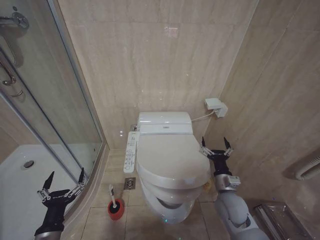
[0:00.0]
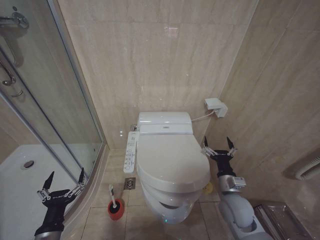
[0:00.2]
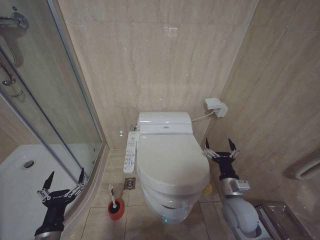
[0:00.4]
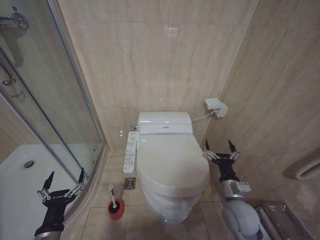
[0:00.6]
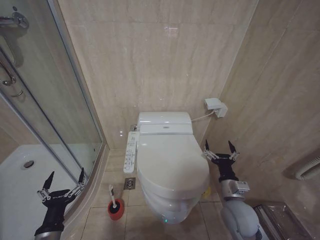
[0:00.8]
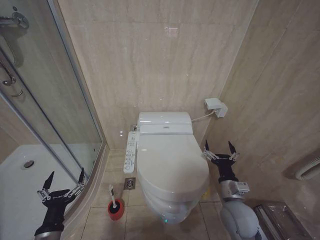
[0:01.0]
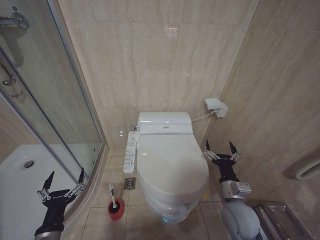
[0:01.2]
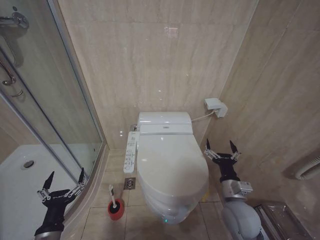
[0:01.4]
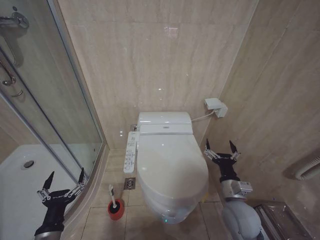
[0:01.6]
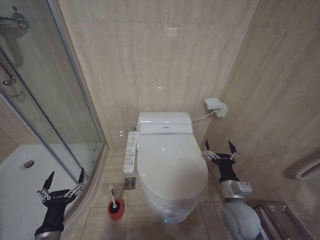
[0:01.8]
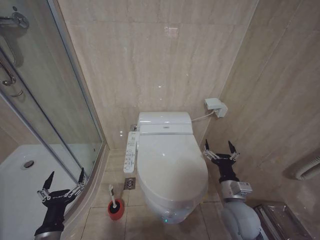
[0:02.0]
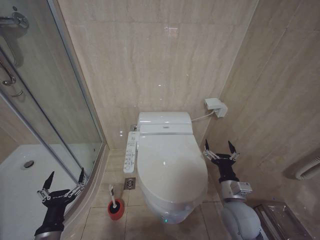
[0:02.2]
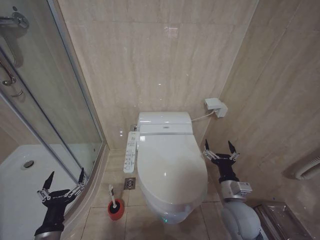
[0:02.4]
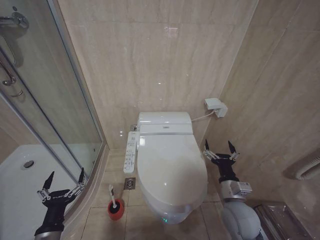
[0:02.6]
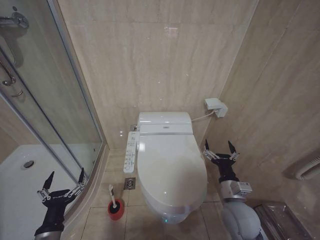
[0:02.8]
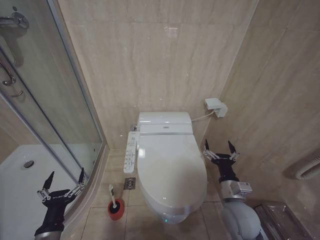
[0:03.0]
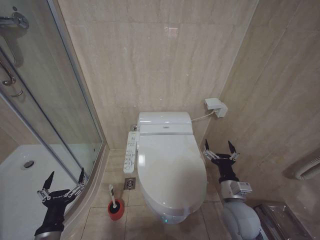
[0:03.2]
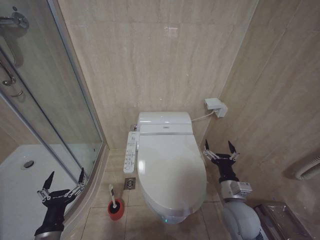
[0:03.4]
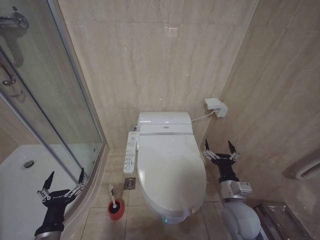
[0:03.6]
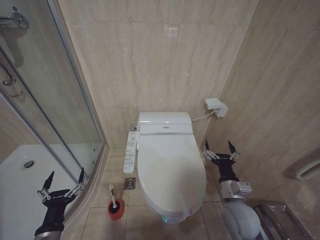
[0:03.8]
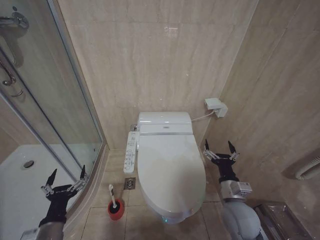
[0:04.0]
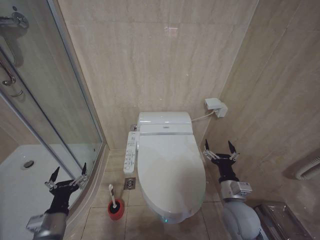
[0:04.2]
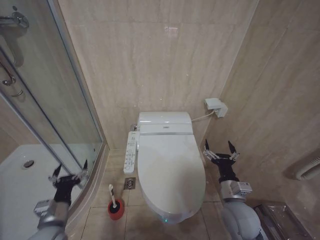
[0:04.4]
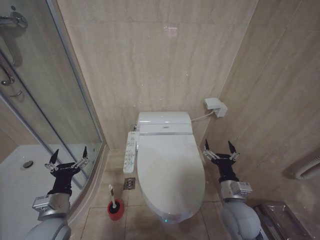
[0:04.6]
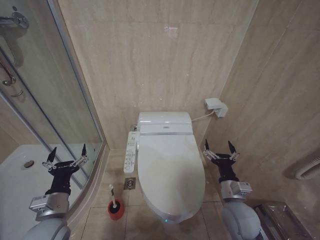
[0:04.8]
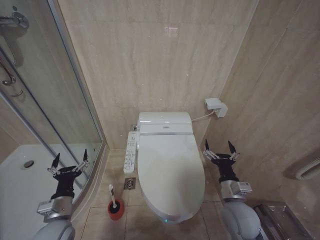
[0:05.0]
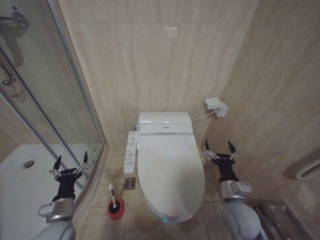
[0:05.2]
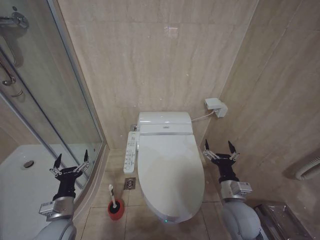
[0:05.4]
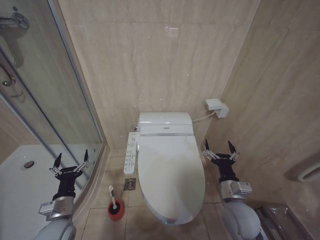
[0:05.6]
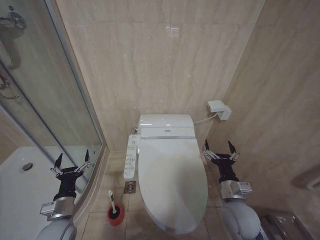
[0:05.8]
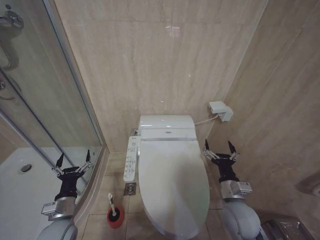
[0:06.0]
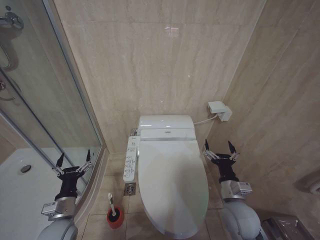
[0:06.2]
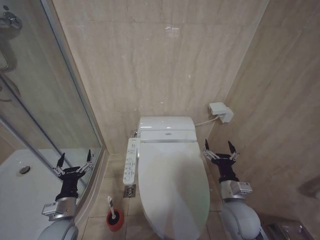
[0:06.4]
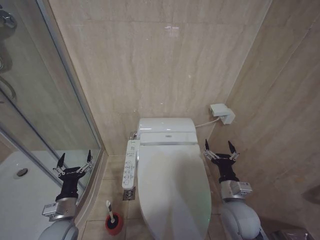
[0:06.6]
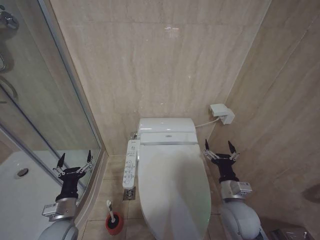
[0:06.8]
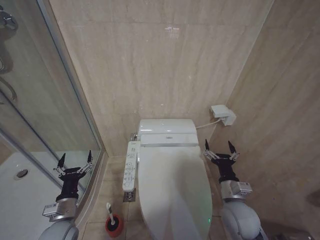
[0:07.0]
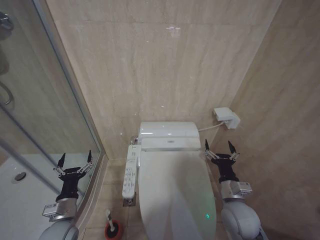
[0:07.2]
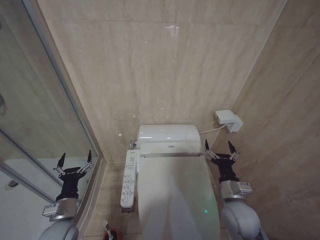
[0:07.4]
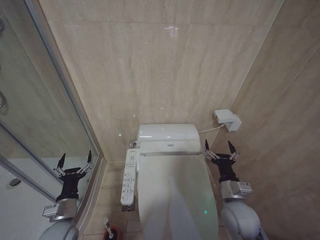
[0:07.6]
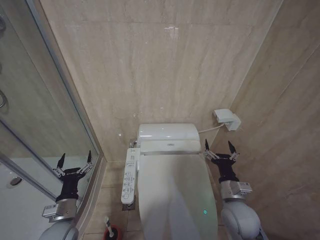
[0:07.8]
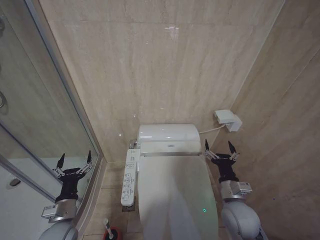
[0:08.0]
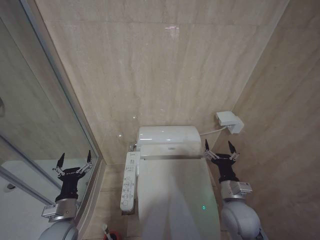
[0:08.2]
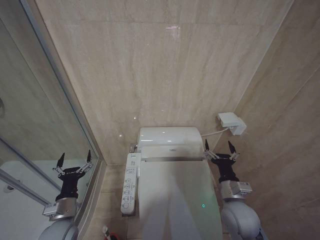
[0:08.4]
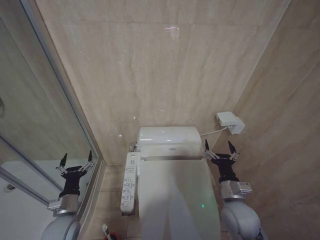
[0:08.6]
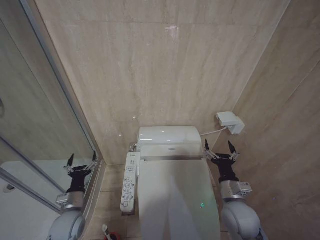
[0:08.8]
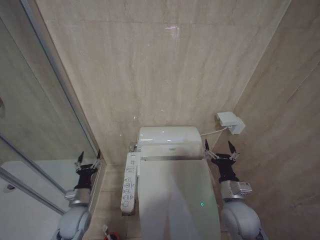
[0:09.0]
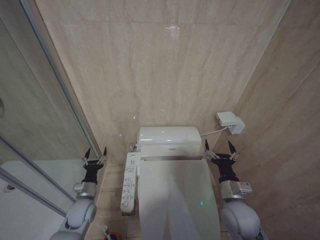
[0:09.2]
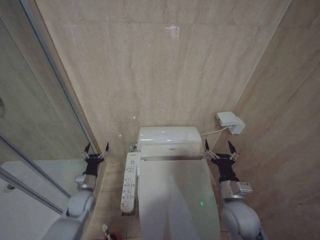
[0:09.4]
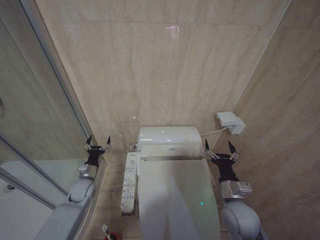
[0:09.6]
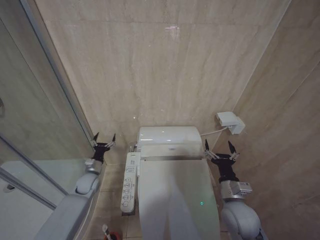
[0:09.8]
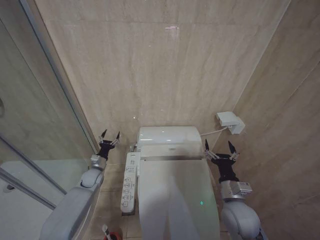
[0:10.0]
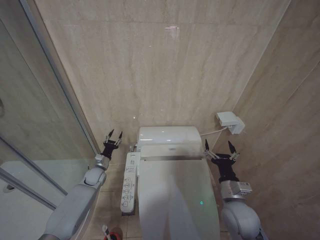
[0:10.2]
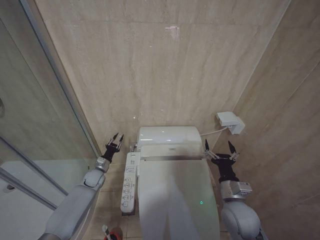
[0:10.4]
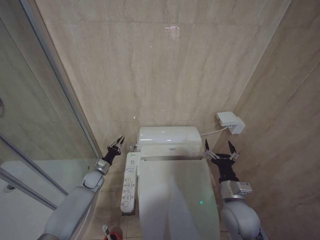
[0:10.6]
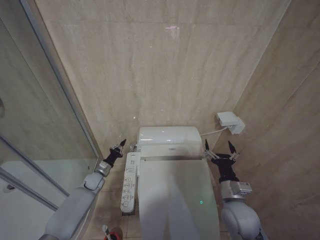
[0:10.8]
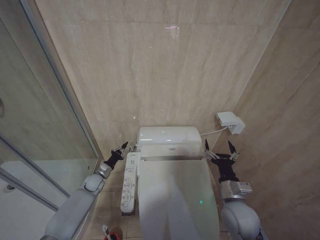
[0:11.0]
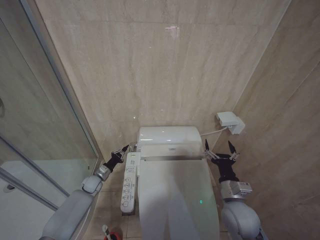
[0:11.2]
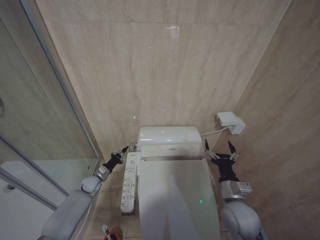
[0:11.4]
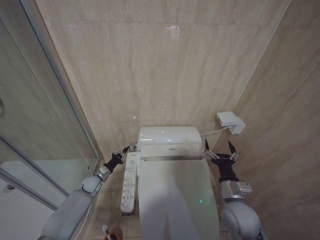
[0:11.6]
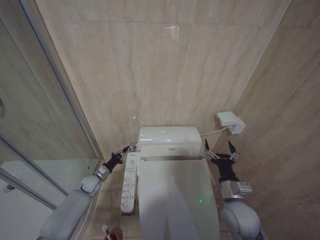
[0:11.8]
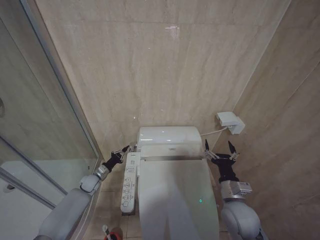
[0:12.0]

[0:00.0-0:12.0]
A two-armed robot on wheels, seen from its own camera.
Task of the whole recording: Open the toilet lid, clean the toilet bowl with a toilet brush, close the toilet lid, and flush.
0:00.0 to 0:01.6: The right gripper changes place by approximately 5 cm.
0:01.6 to 0:03.0: Both grippers stay put.
0:03.0 to 0:04.4: The left gripper shifts about 5 cm forward.
0:04.4 to 0:06.0: There are only small adjustments of the grippers.
0:06.0 to 0:07.6: The two grippers keep their place.
0:07.6 to 0:09.0: The left gripper moves forward, approximately 5 cm.
0:09.0 to 0:10.4: The left gripper moves forward, some 20 cm, and closes.
0:10.4 to 0:12.0: The left gripper closes.

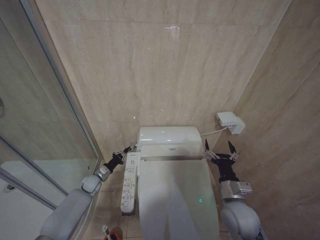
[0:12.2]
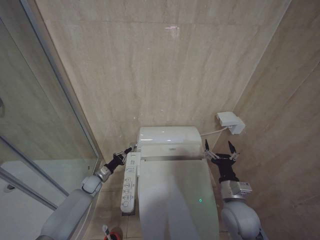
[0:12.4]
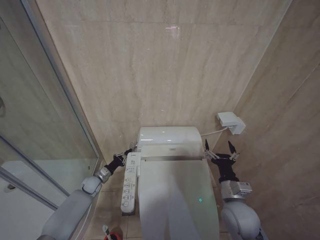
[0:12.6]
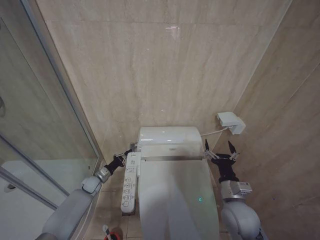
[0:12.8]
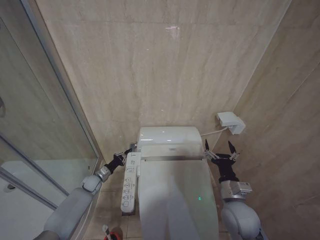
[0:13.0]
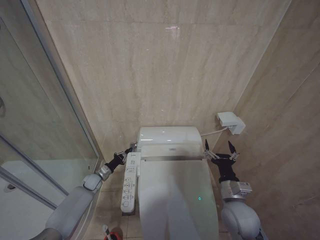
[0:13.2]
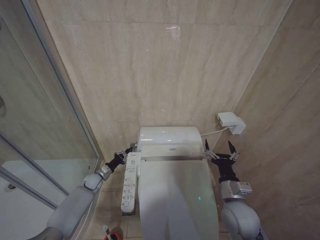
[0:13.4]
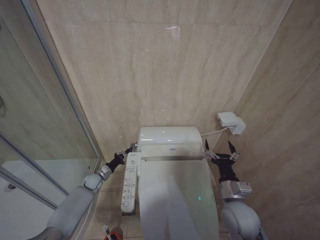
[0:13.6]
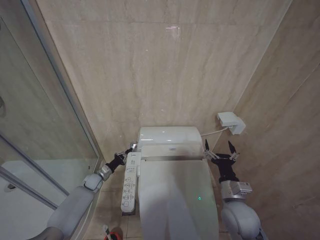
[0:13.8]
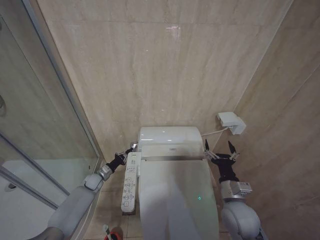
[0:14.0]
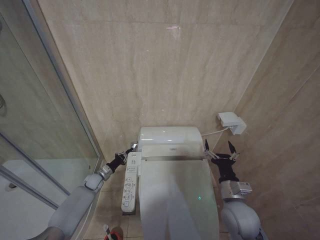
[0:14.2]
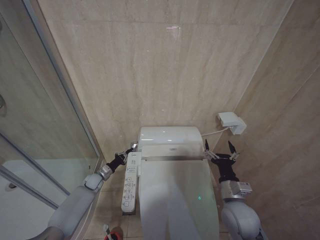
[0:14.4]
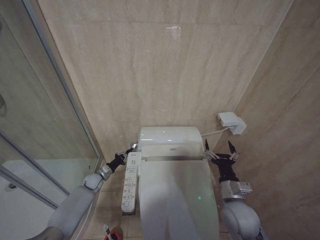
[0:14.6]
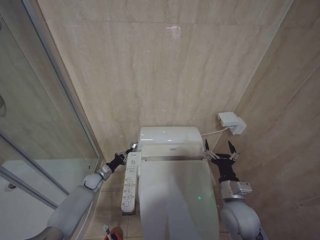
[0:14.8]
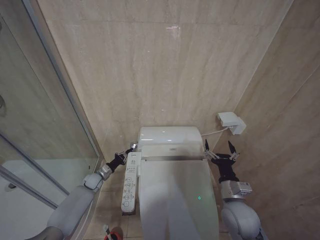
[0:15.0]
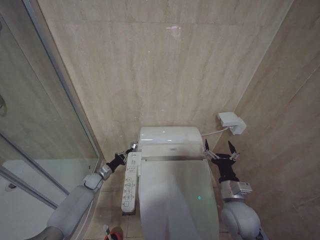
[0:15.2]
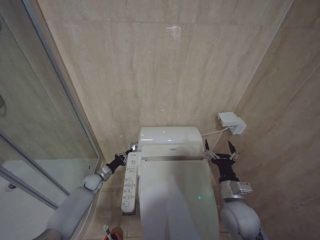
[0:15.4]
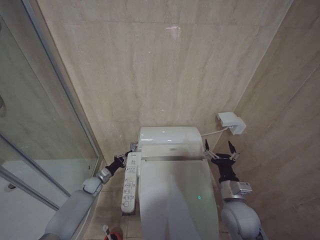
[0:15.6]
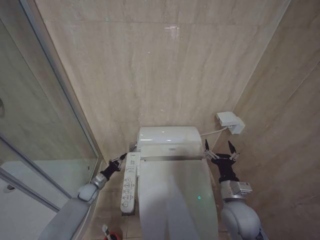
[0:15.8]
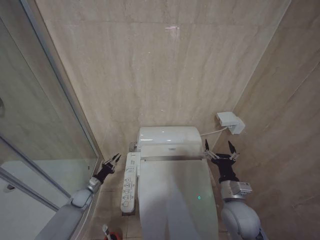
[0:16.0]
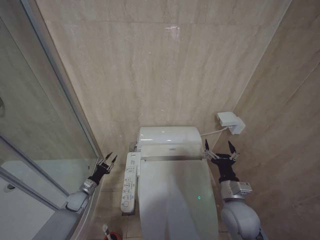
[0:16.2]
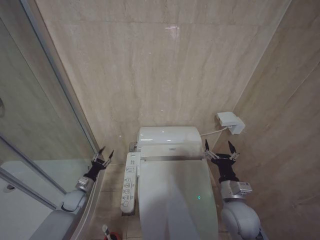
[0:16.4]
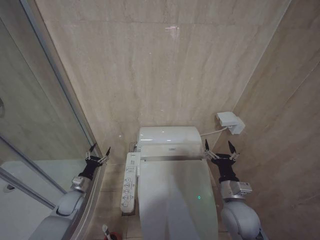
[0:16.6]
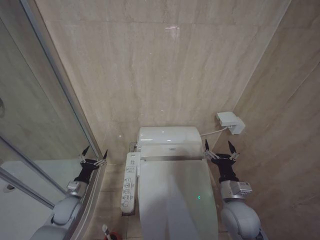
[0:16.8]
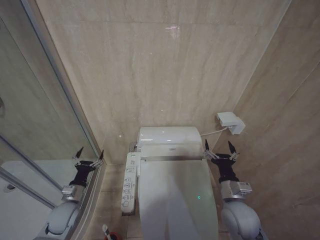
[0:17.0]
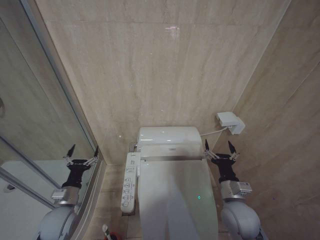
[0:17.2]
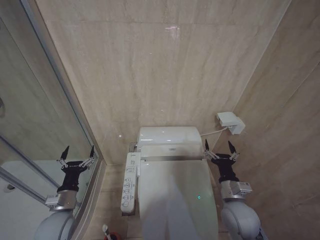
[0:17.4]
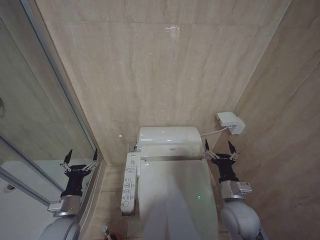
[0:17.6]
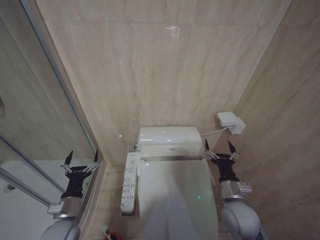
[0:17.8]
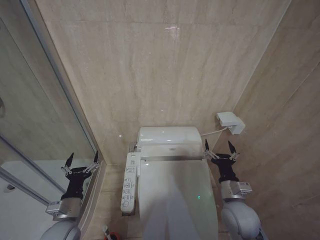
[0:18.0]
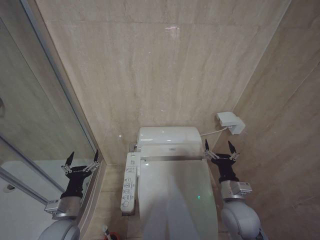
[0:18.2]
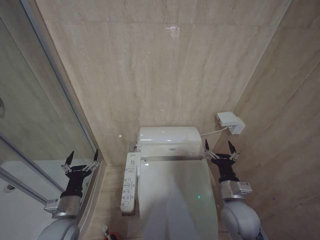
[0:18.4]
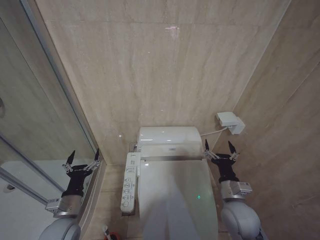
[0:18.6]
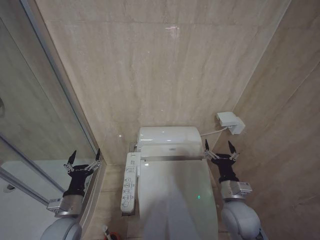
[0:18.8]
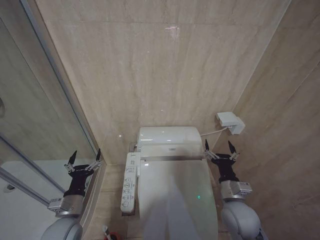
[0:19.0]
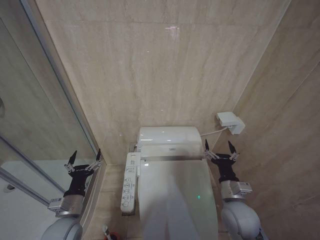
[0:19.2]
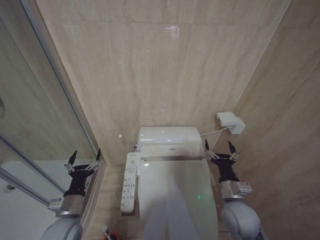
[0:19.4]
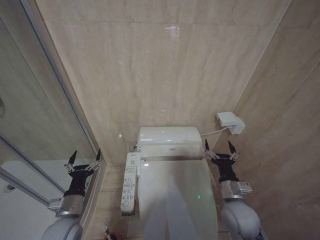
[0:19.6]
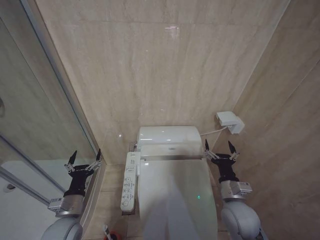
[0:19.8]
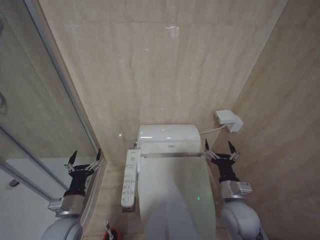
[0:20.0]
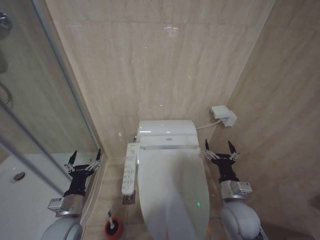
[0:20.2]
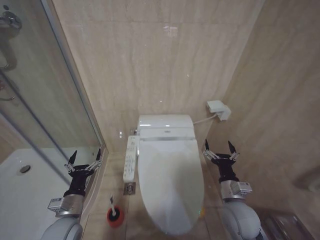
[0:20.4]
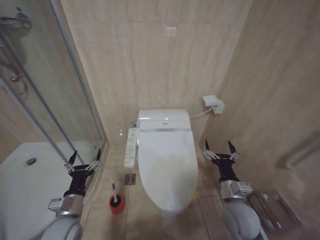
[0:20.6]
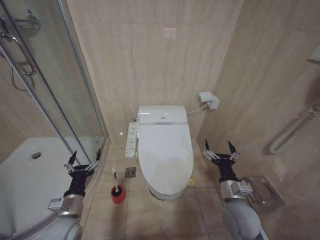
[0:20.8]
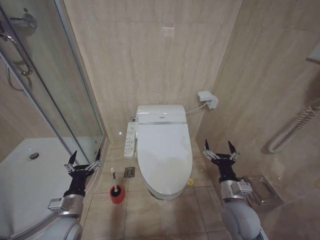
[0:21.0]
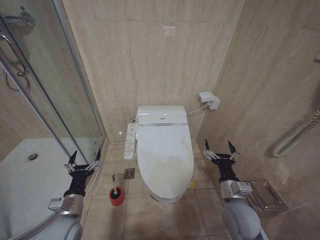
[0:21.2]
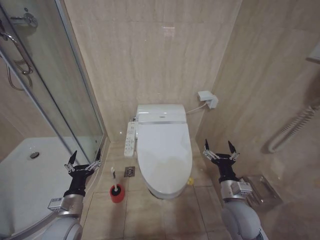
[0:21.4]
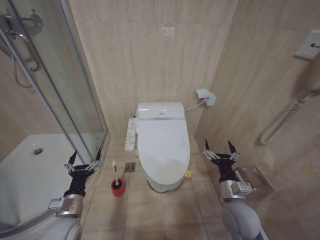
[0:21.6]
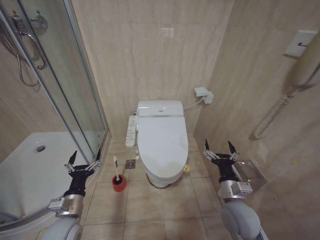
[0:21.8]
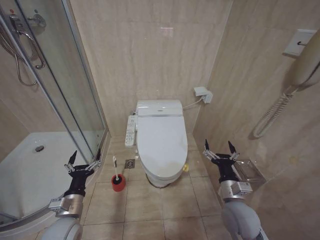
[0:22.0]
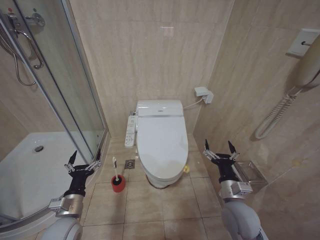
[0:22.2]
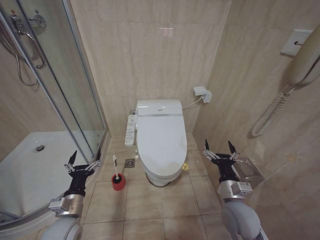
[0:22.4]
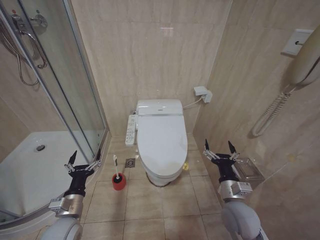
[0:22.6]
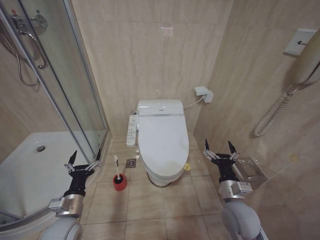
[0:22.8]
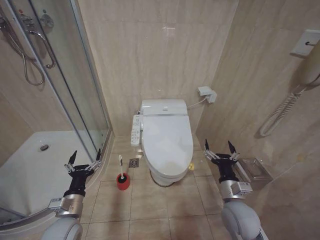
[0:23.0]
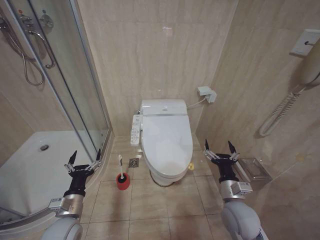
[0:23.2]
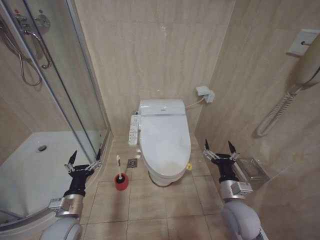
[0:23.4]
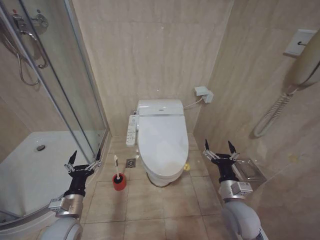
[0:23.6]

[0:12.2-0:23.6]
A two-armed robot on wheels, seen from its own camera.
Task of the whole recording: Open the toilet lid, clean the toilet bowl with a toilet brush, close the toilet lid, and flush.
0:13.6 to 0:15.0: Both grippers stay about where they are.
0:15.0 to 0:16.4: The left gripper moves backward and to the left, some 10 cm.
0:16.4 to 0:17.8: The left gripper travels backward, upward and to the right by some 20 cm, and opens up.
0:17.8 to 0:19.4: There are only small adjustments of the grippers.
0:20.8 to 0:23.6: The two grippers keep their place.
